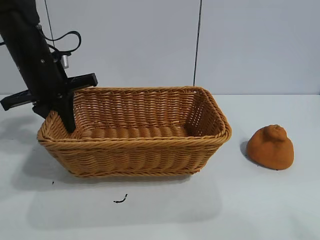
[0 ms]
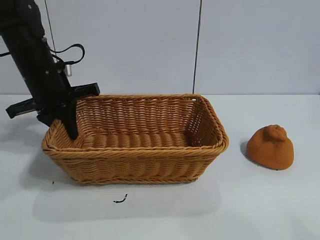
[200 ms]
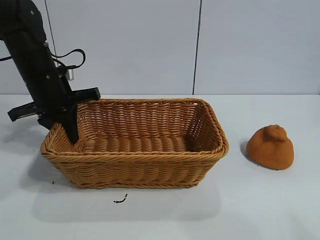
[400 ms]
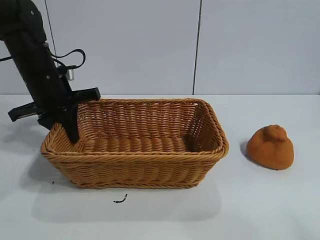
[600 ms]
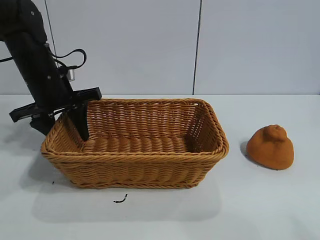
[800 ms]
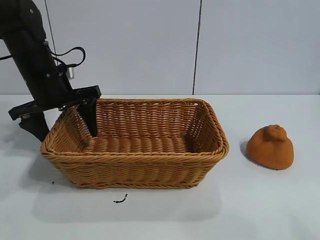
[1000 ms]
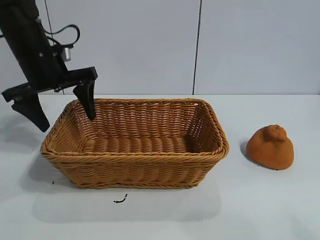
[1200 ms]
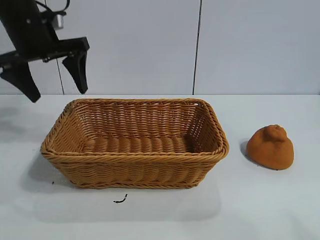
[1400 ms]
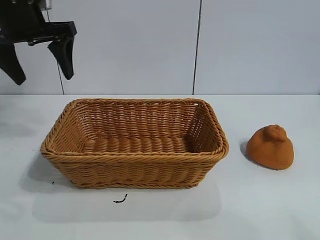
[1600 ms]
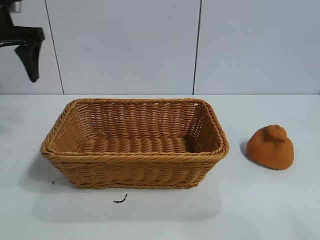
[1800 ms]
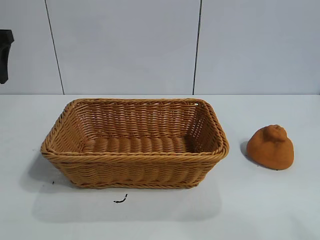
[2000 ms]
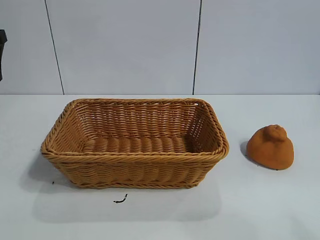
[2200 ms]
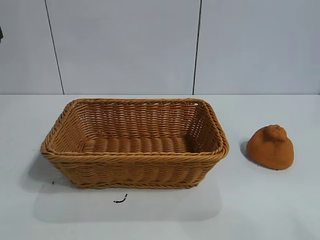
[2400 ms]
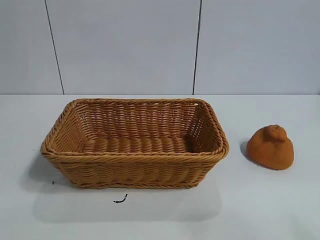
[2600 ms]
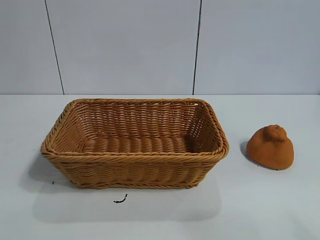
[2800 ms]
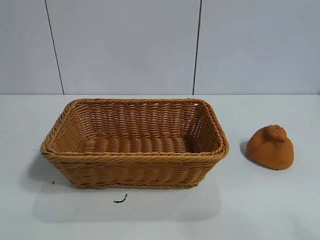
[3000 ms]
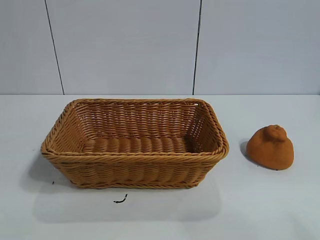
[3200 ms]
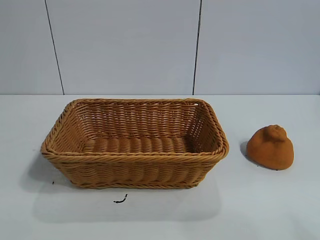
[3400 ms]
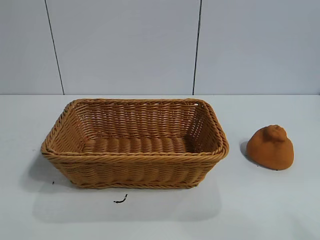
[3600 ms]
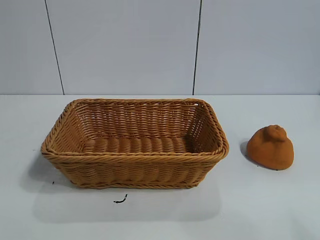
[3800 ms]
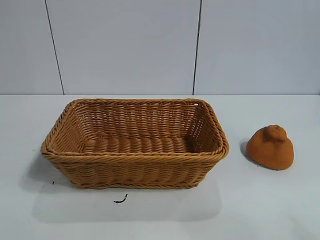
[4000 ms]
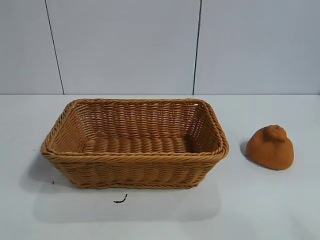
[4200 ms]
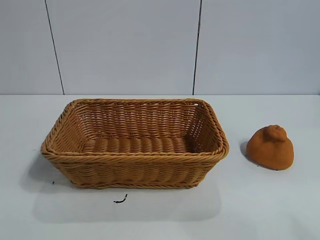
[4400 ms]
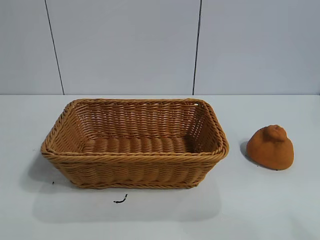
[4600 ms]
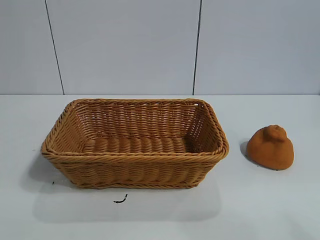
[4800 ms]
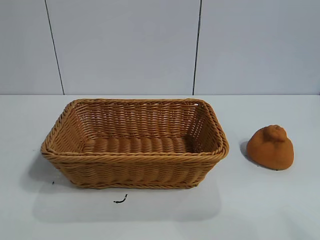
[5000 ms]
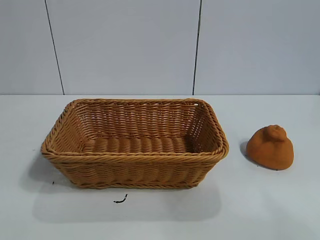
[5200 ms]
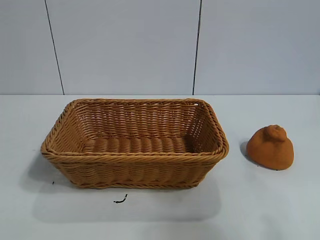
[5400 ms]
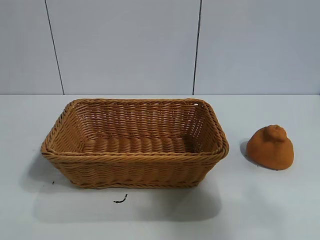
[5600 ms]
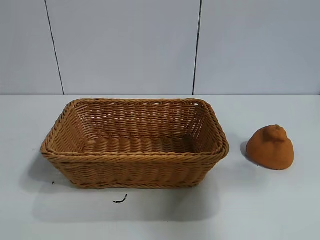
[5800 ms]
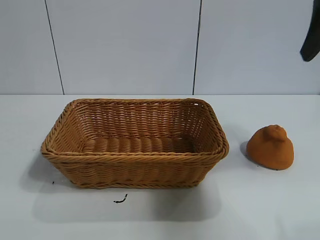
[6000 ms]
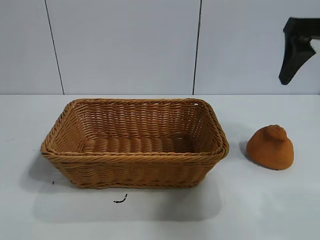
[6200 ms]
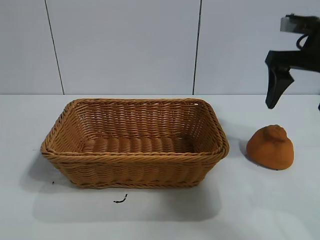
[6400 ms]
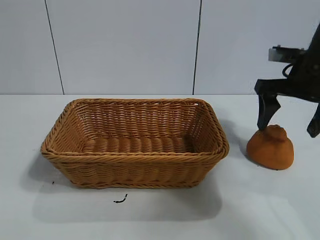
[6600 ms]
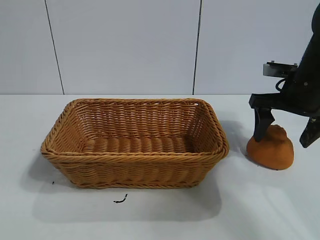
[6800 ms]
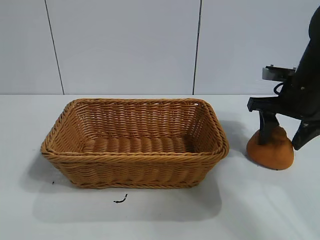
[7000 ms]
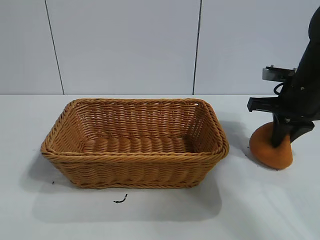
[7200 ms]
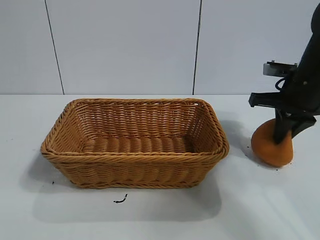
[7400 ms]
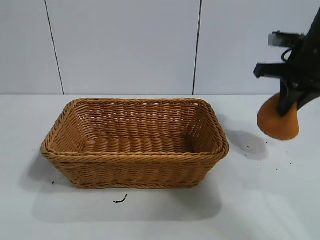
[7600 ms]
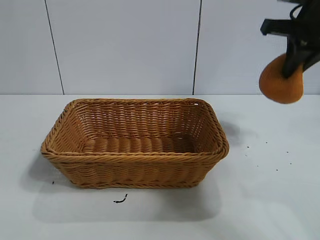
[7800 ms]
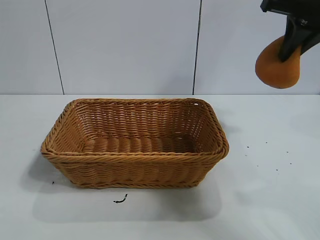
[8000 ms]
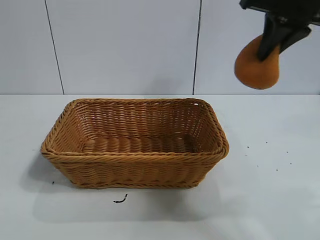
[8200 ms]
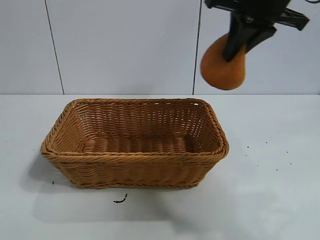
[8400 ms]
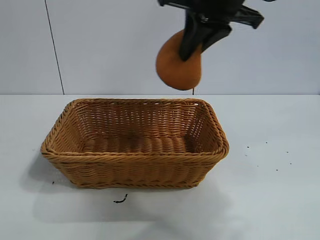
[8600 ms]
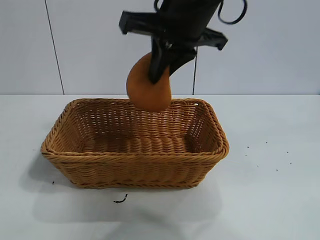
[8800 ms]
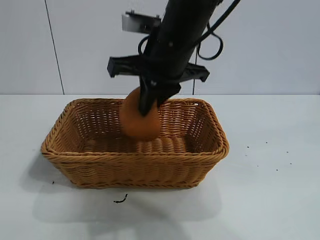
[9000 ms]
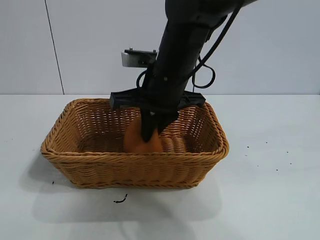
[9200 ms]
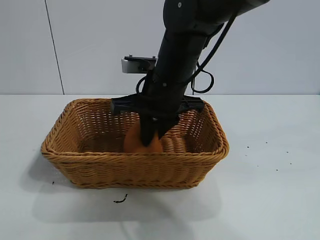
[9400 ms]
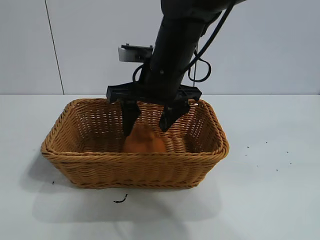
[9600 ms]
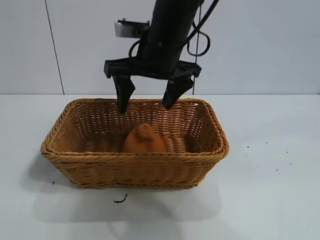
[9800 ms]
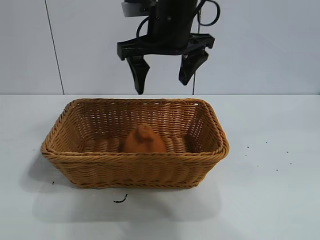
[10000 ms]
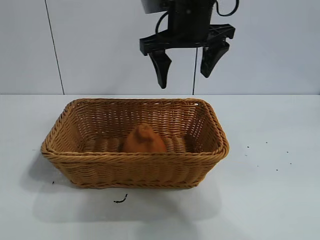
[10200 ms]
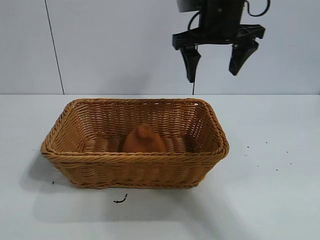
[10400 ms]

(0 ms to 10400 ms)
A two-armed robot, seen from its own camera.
Task of the whole recording: pick up the orange and put it into the basket.
Step, 1200 ms - 7400 ms: Grasp the orange with right gripper.
Step, 7600 ms - 9400 ms: Place the orange in the basket with right gripper.
